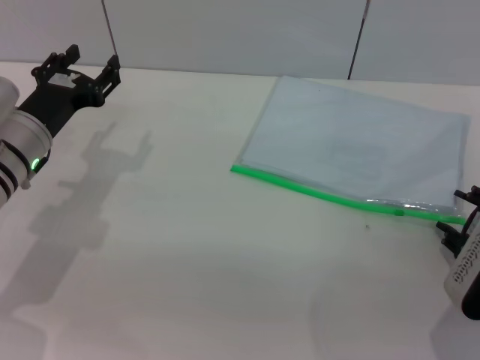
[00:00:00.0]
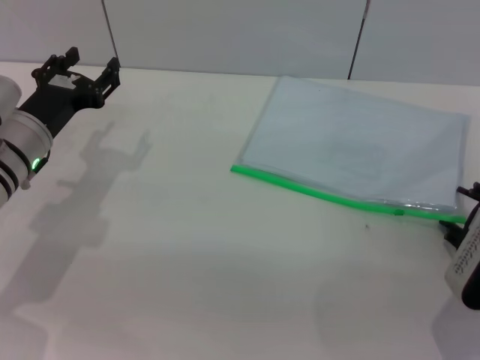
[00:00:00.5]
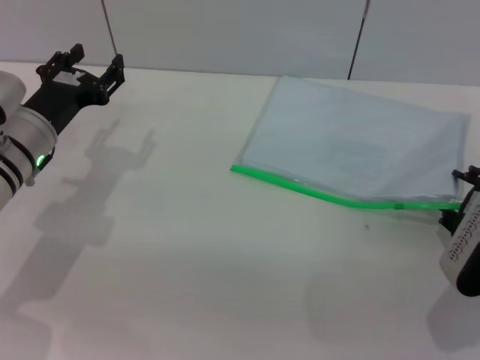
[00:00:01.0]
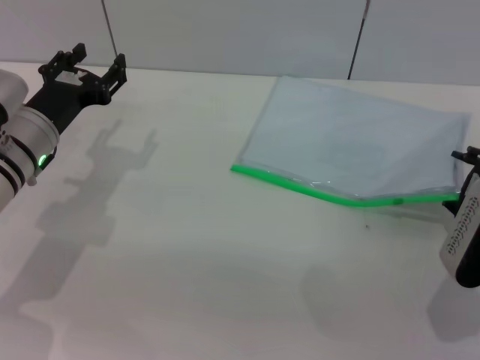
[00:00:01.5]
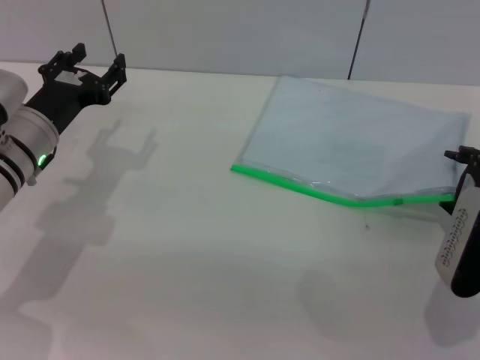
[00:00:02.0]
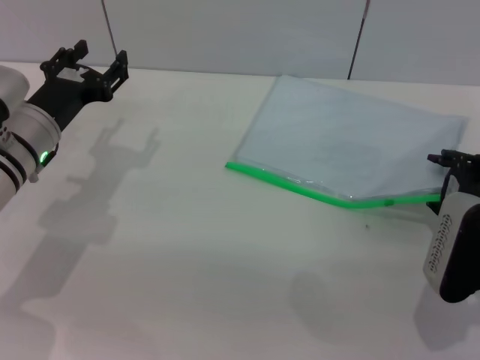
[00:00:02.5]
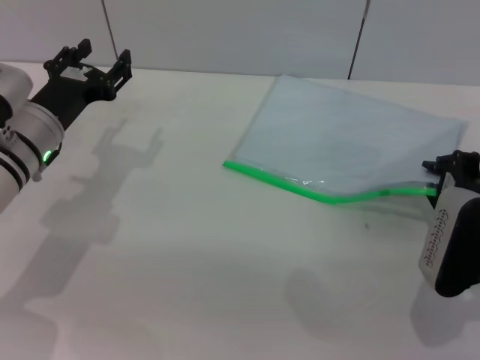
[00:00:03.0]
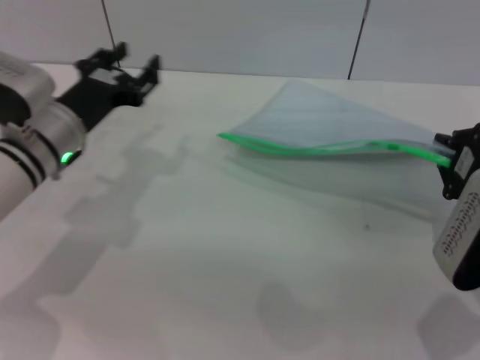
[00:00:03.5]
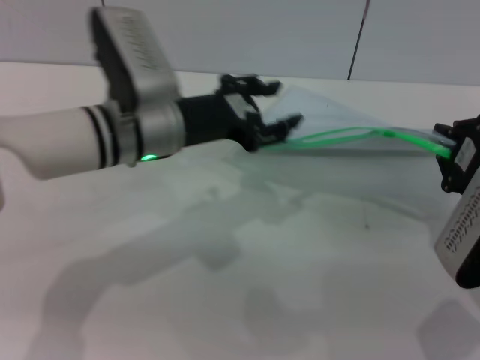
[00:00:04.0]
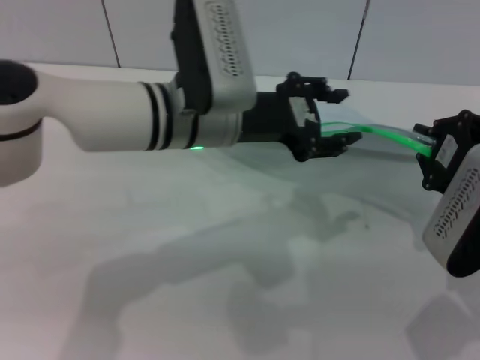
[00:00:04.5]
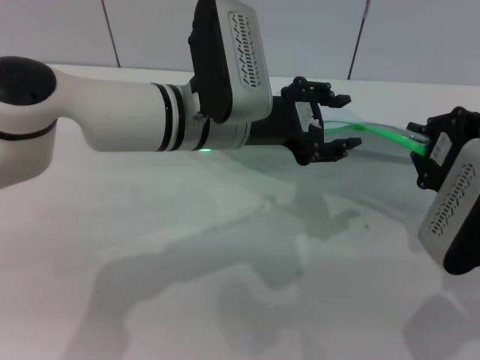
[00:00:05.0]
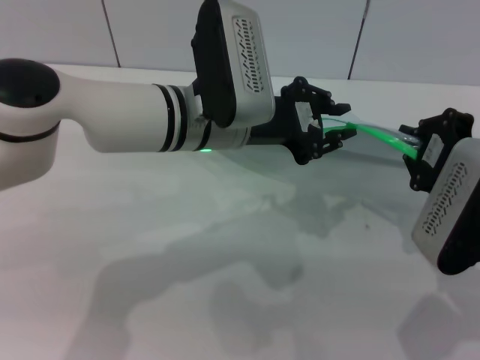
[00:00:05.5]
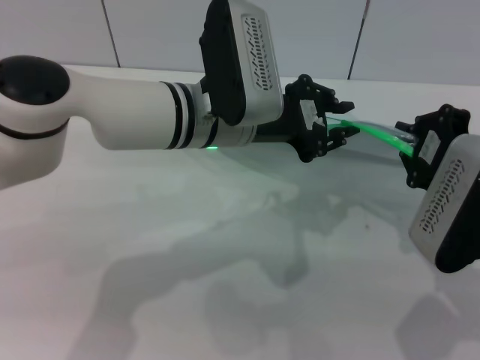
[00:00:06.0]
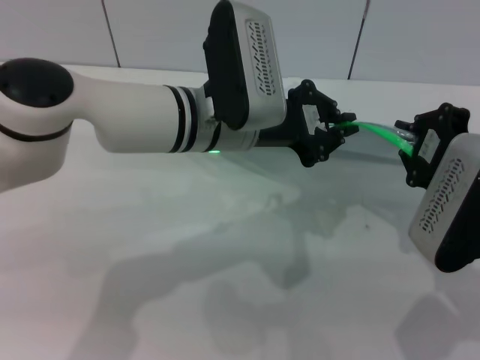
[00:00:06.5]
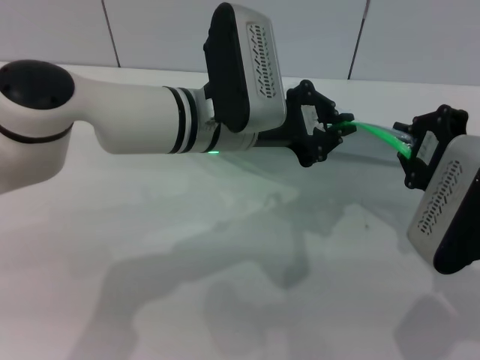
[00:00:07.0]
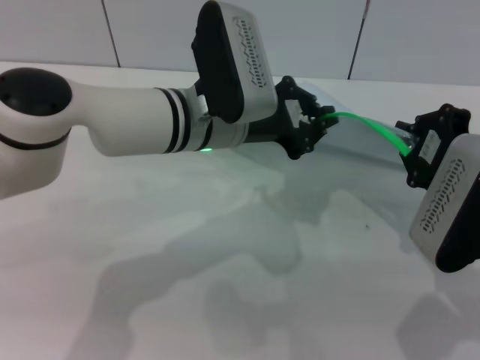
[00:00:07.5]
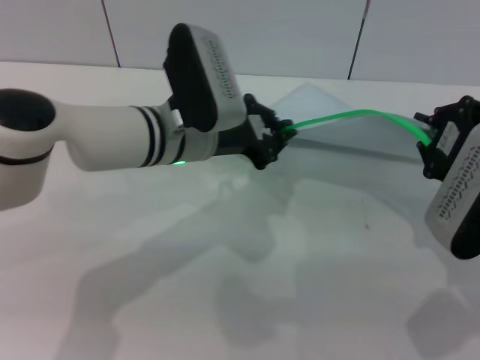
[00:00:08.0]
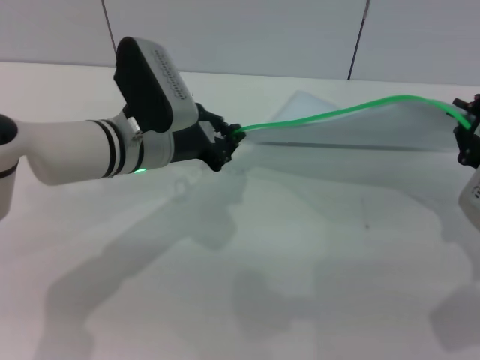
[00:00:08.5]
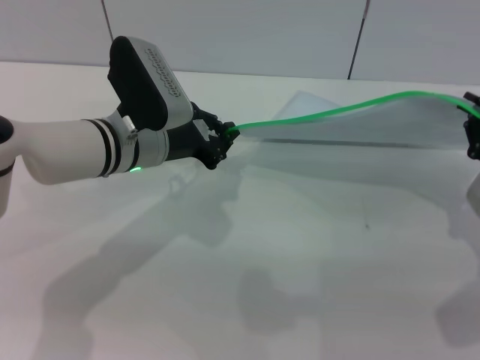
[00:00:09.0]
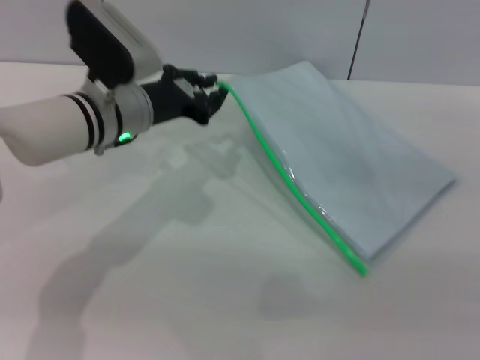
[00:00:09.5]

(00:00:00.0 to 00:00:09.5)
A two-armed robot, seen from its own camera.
Step, 00:00:00.0 - 00:00:04.0: Pick up the transparent plastic bag with the right gripper.
Step, 00:00:04.5 - 00:00:09.0: Pulling up the zipper on the transparent plastic bag with the left gripper to close it.
00:00:00.0 - 00:00:02.0: There are only small adjustments of the grippers.
00:00:02.0 - 00:00:04.0: The left gripper travels to the right and upward by some 15 cm. The right gripper moves upward, approximately 5 cm, and closes up.
00:00:04.0 - 00:00:05.5: The left gripper goes some 5 cm to the right.
00:00:05.5 - 00:00:07.5: The left gripper closes its fingers.
00:00:07.5 - 00:00:09.5: The left gripper goes some 10 cm to the left, while the right gripper shifts about 10 cm to the right.

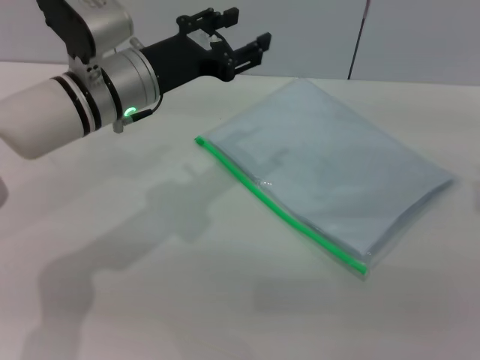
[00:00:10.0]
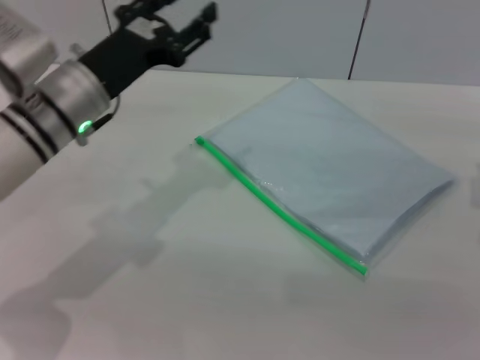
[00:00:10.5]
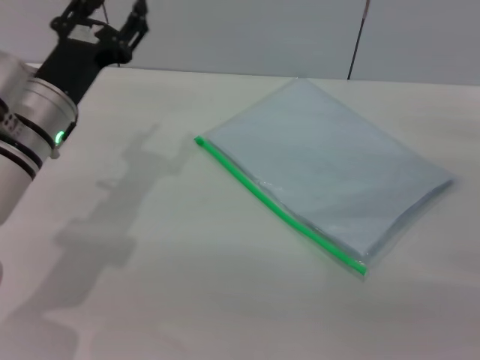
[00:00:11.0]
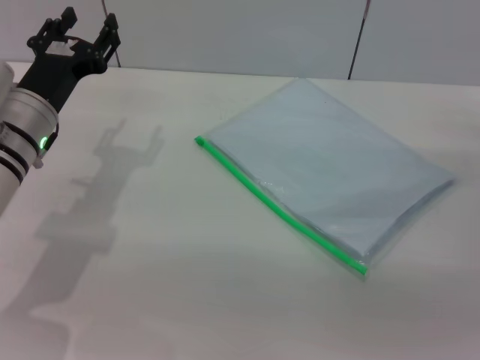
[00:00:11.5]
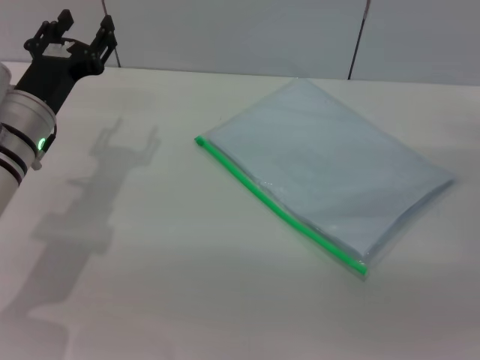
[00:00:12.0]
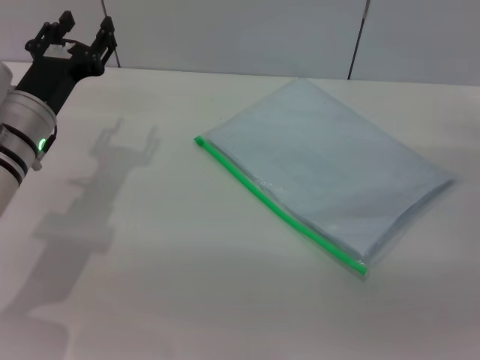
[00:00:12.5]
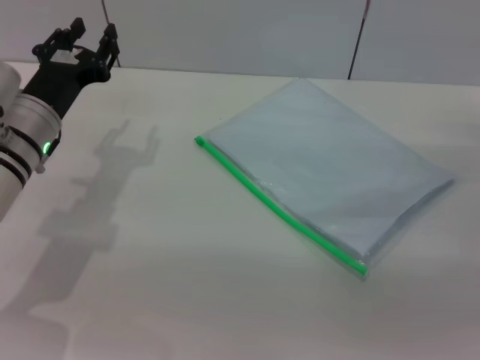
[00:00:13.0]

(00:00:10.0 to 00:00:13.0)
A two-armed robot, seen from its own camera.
00:00:10.0 - 00:00:11.5: The right gripper moves downward, roughly 10 cm; the left gripper shifts approximately 10 cm to the left.
00:00:11.5 - 00:00:13.0: The two grippers keep their place.
